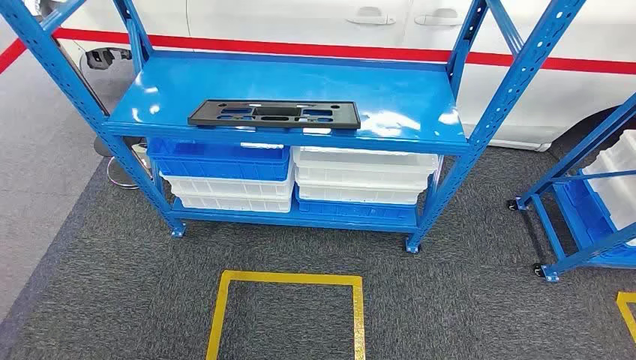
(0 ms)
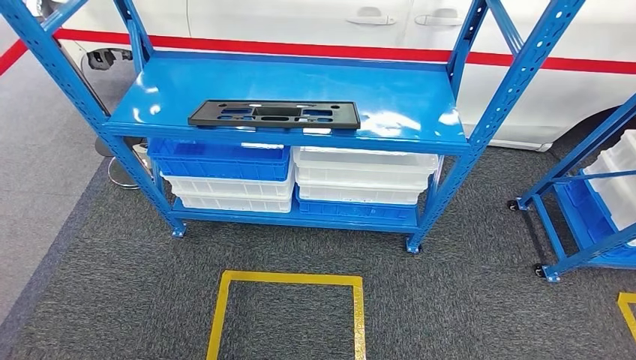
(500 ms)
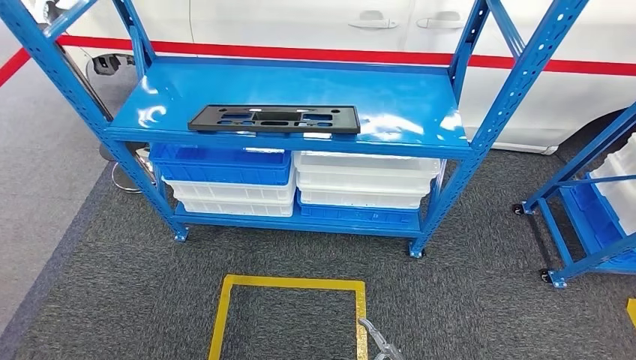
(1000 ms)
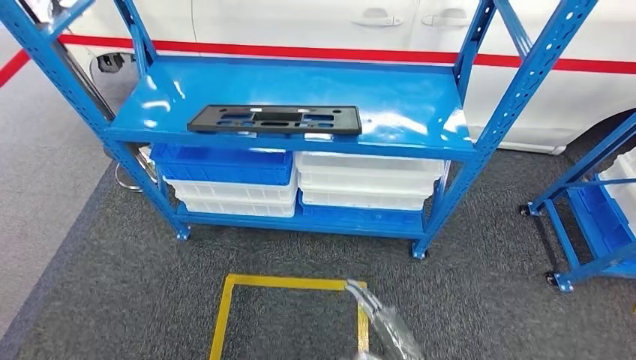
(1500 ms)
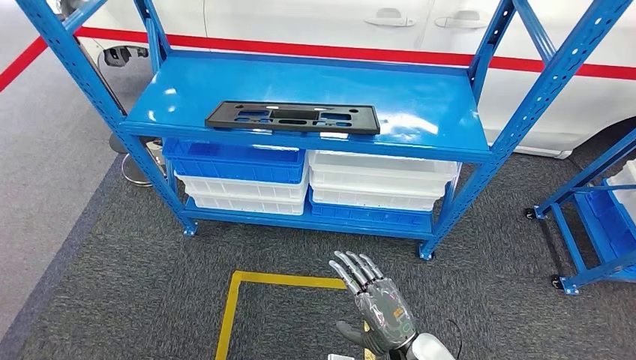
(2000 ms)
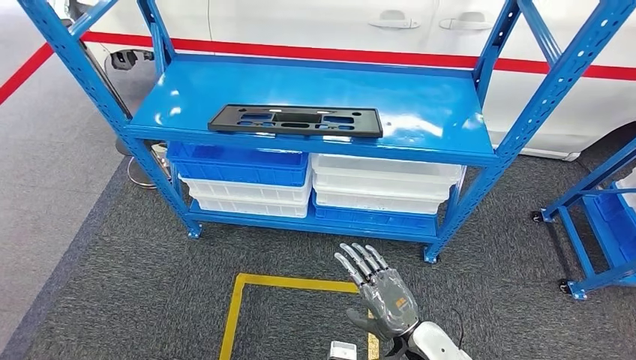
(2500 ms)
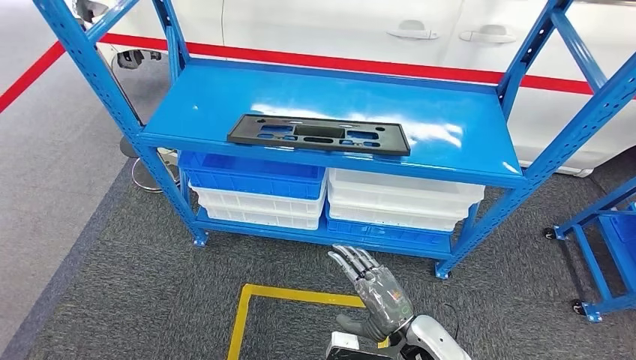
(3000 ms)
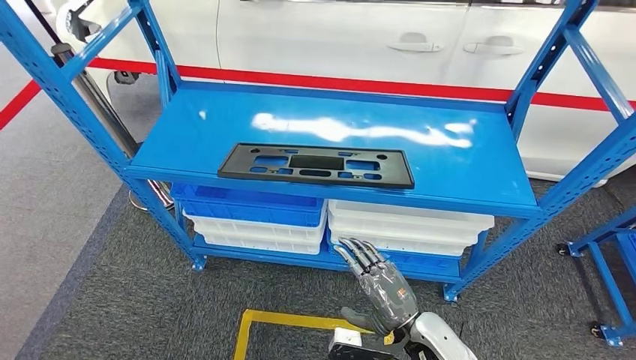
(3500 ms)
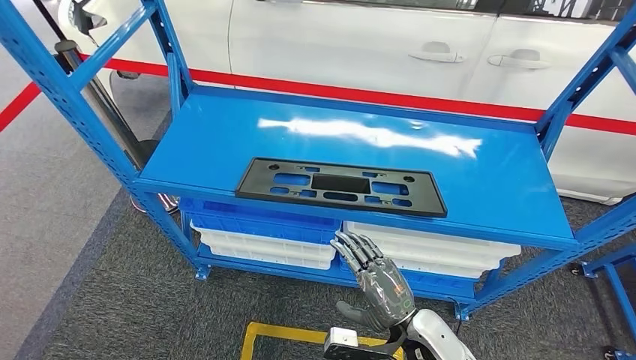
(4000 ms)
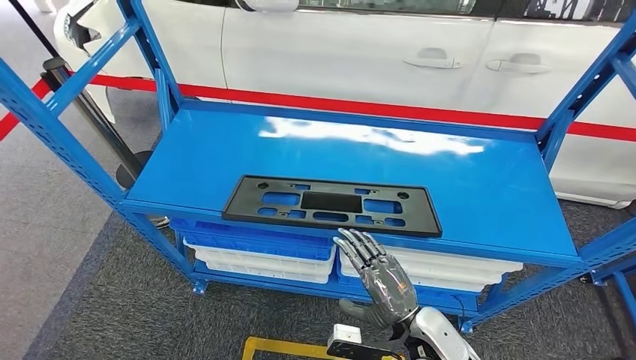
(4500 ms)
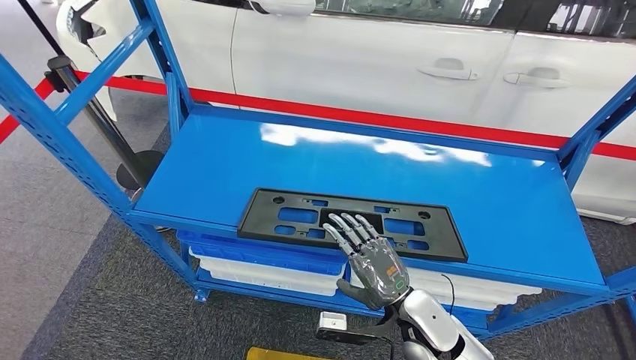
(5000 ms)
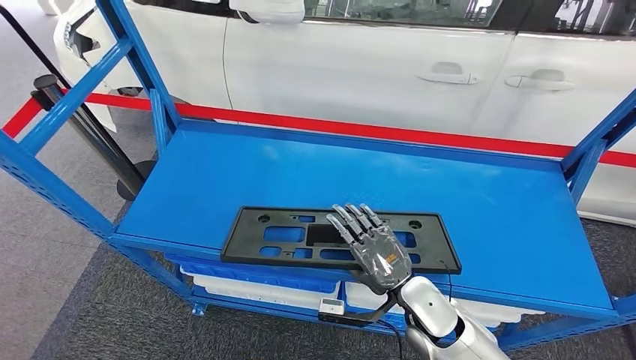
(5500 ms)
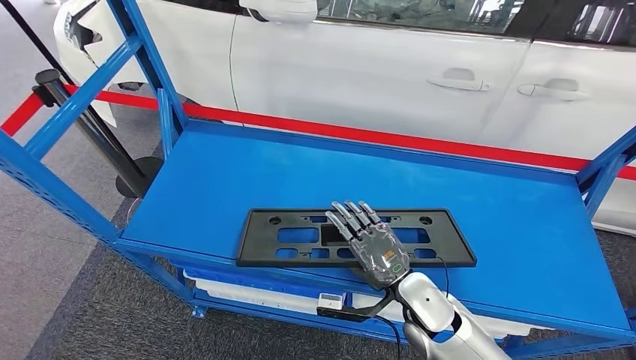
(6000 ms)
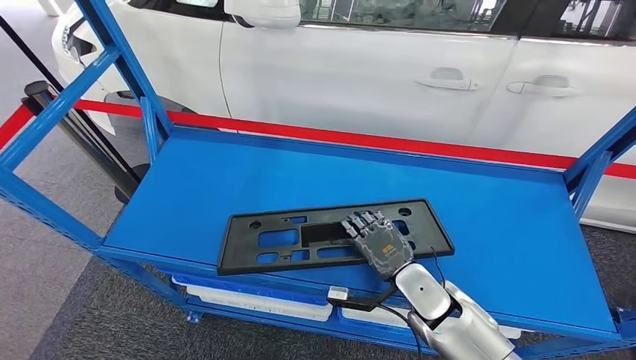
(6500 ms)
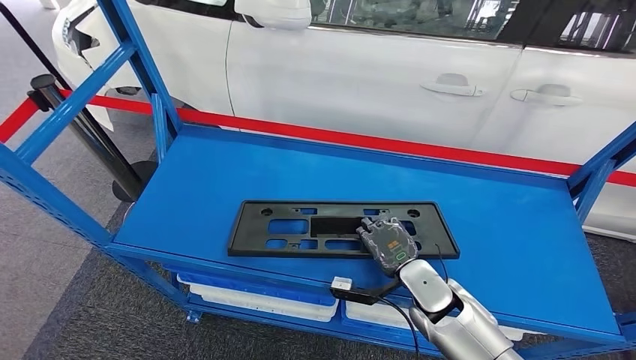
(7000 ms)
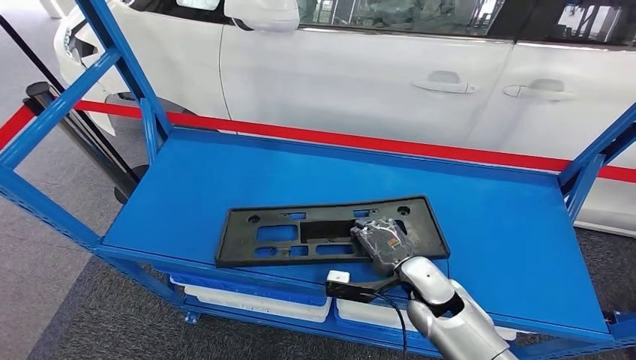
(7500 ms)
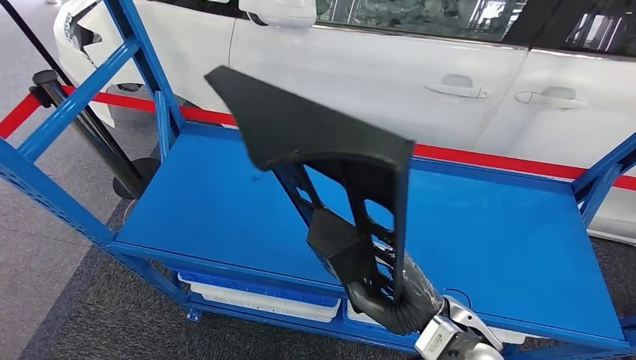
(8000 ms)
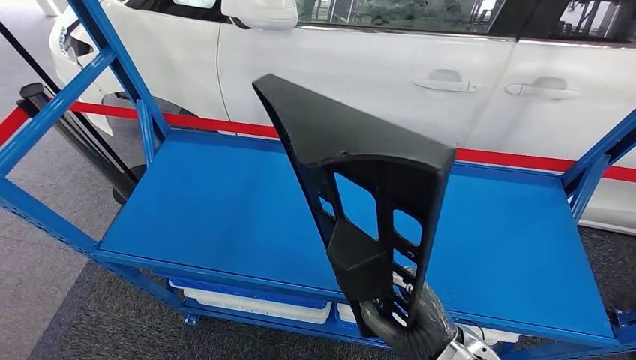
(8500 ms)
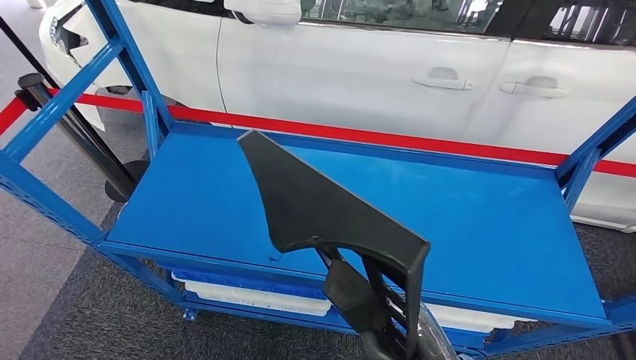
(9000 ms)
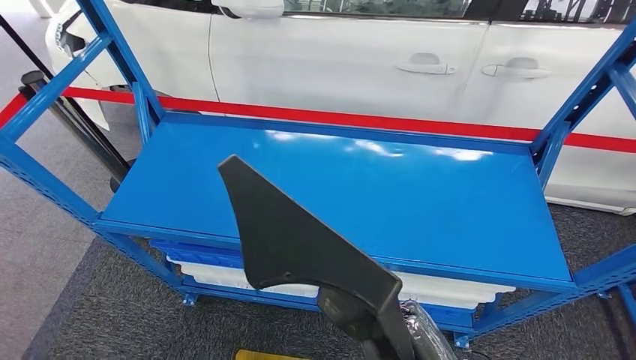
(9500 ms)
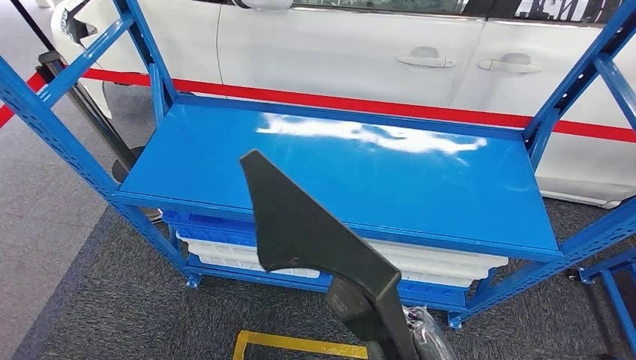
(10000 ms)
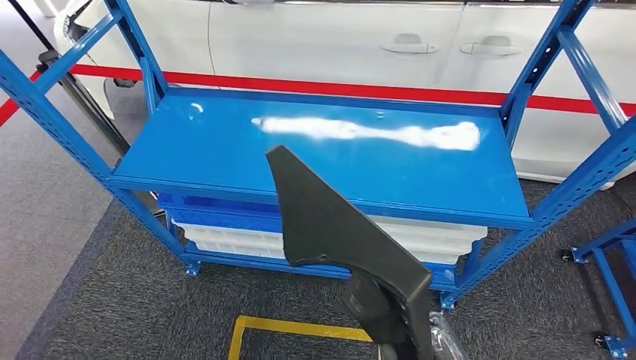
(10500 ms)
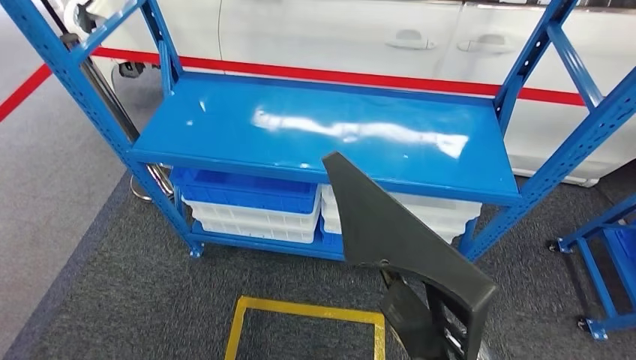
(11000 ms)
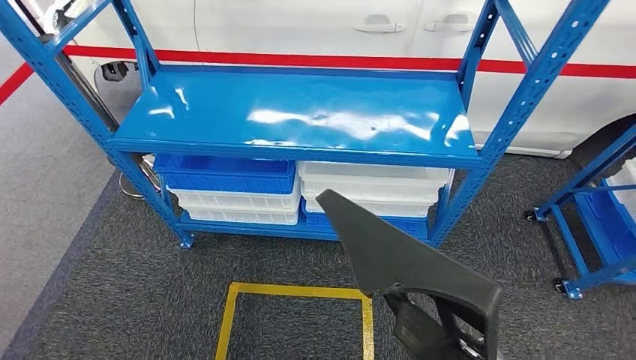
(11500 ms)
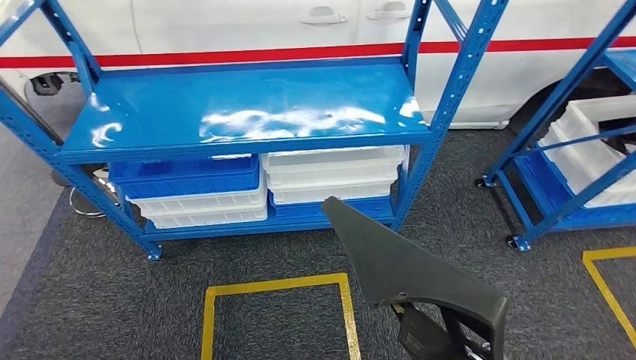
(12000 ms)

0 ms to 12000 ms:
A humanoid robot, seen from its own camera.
Step, 0 ms to 9500 ms: Pick up the large parts from the shelf.

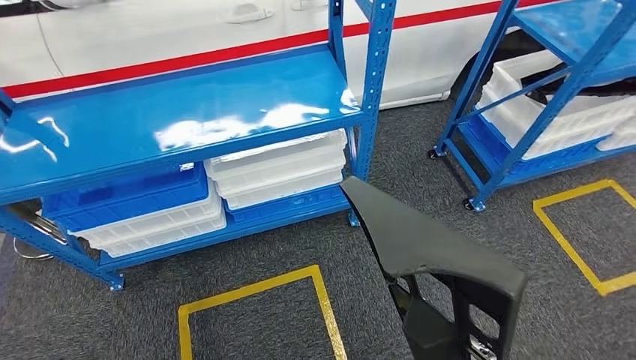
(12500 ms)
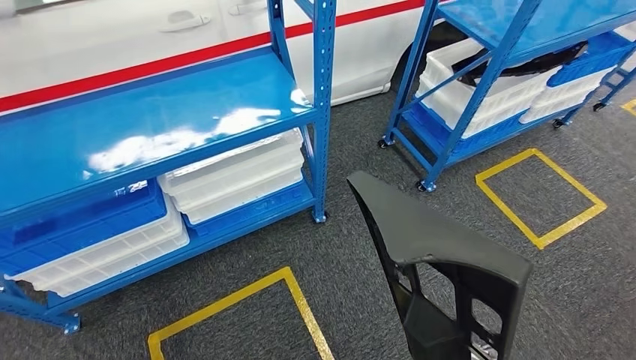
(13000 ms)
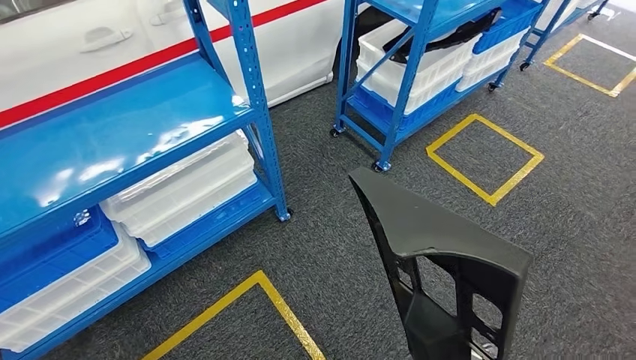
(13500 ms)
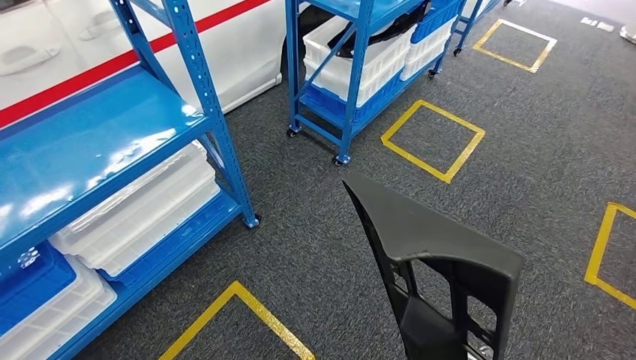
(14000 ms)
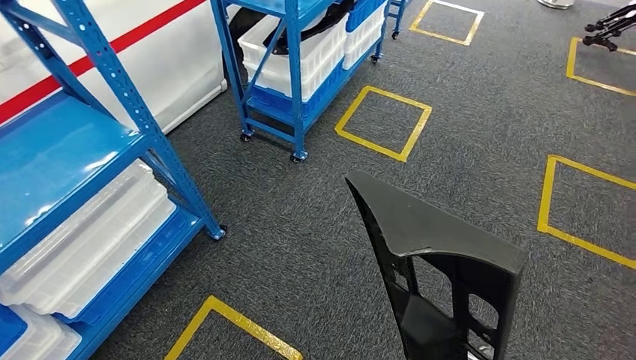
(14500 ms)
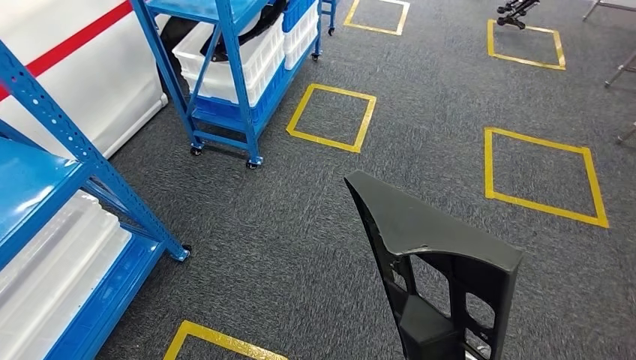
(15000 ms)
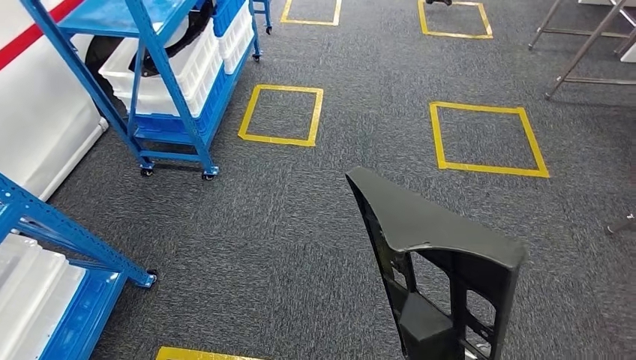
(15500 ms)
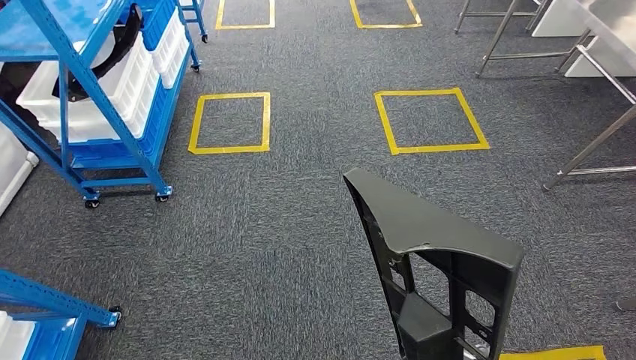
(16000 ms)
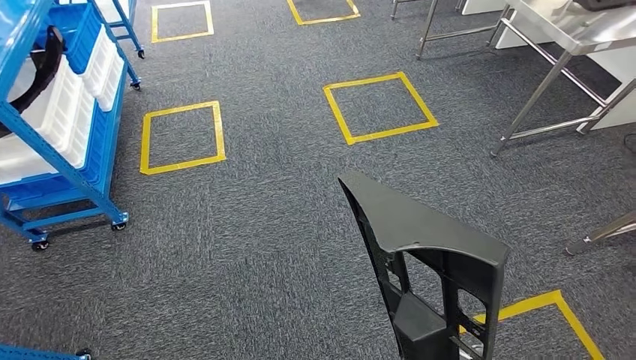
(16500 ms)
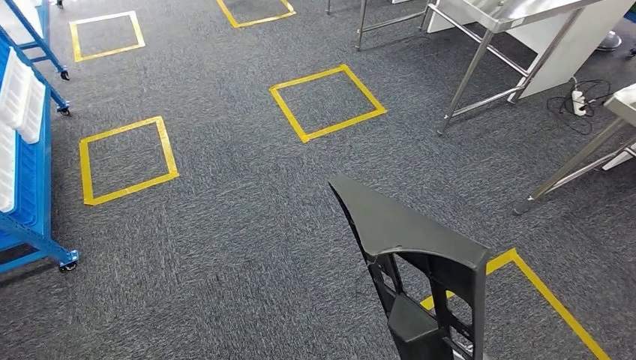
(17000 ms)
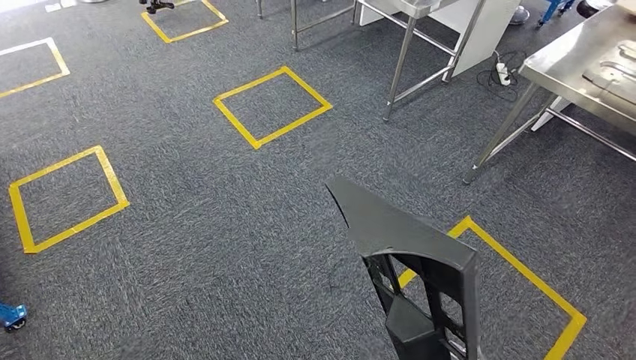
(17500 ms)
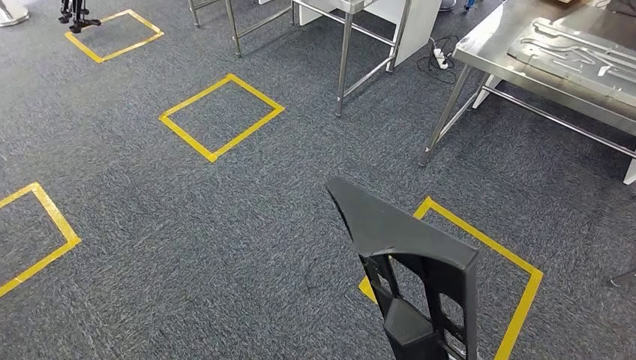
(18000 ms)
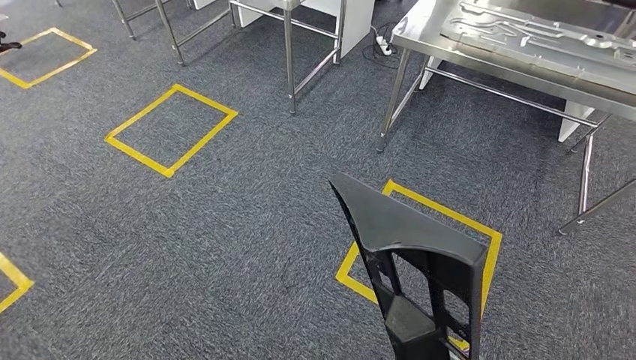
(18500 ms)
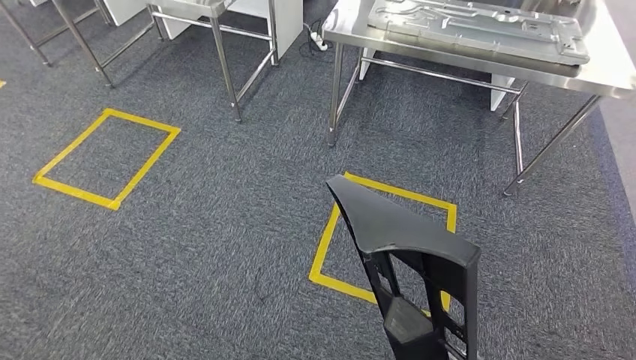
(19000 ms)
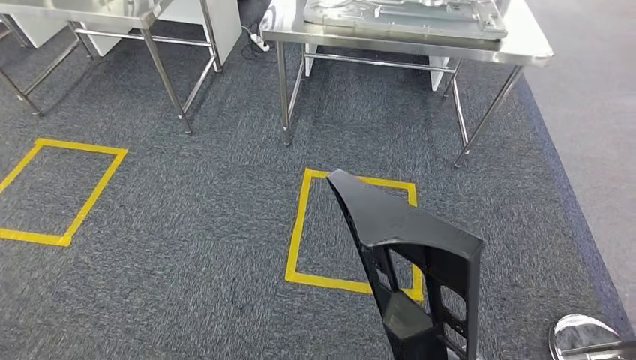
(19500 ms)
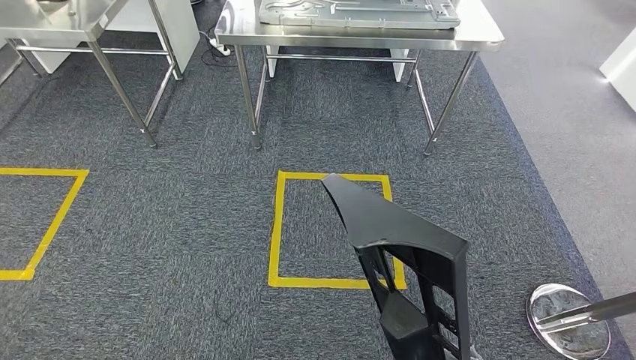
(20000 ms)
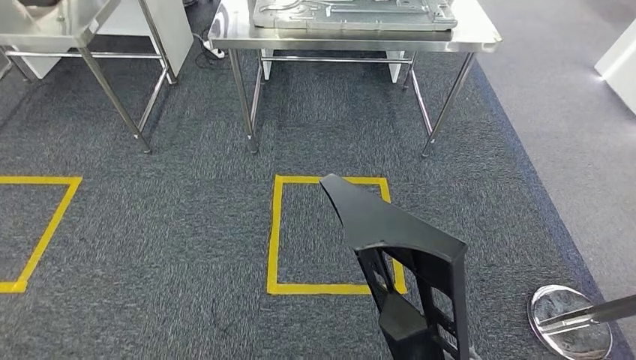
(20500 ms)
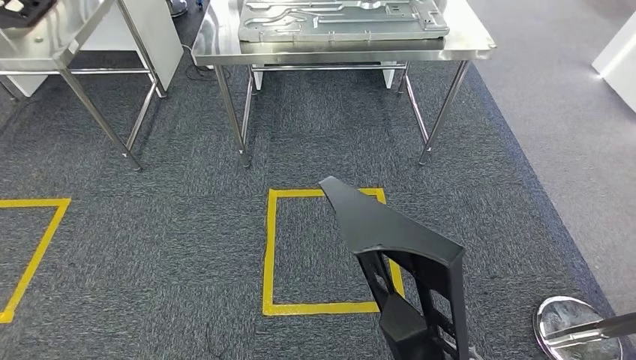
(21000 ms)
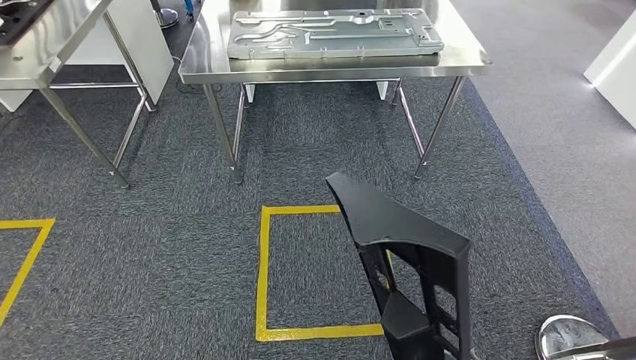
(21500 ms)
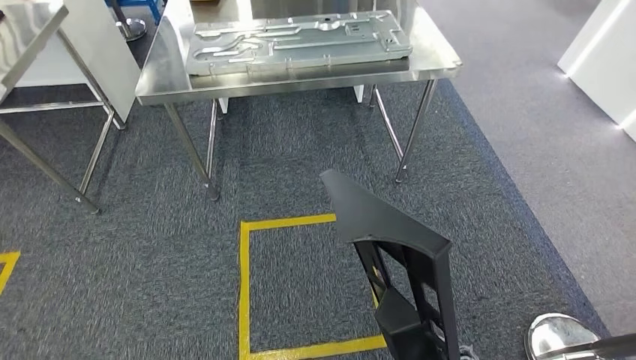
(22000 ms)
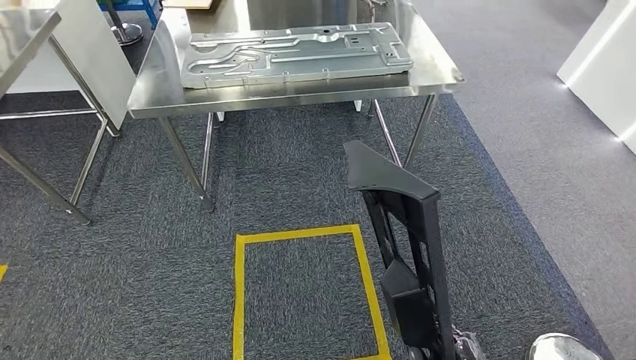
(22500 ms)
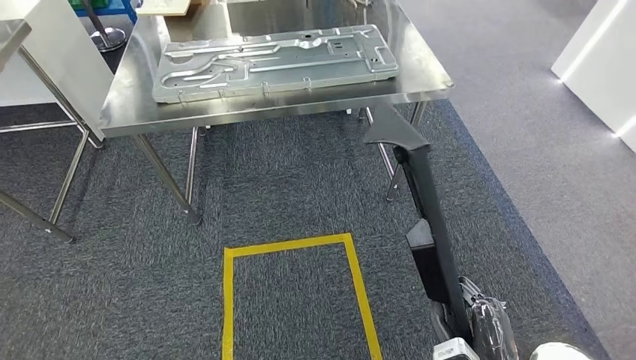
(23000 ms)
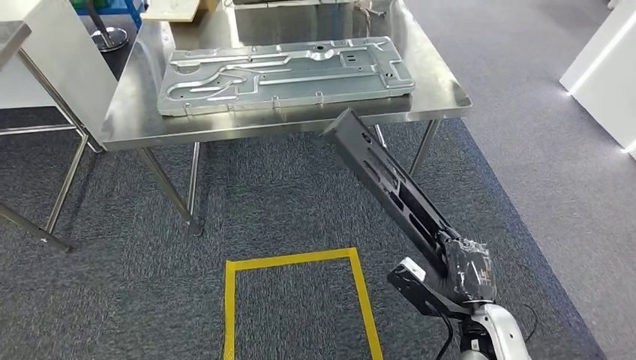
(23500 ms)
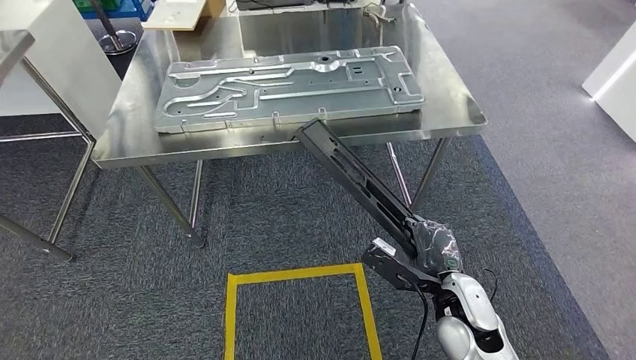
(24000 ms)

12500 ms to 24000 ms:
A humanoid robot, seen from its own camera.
Step, 14500 ms to 24000 ms: Move the large parts to the workbench.
